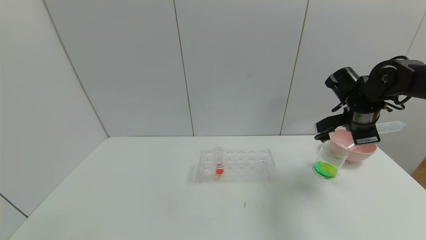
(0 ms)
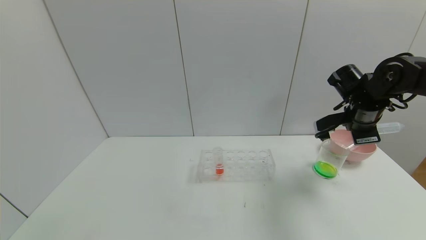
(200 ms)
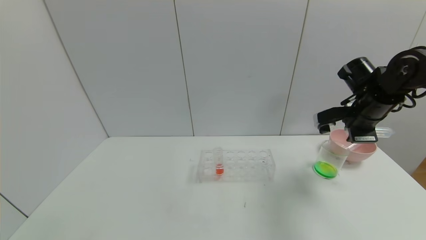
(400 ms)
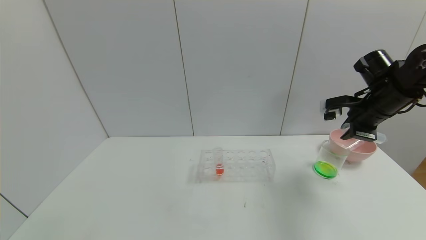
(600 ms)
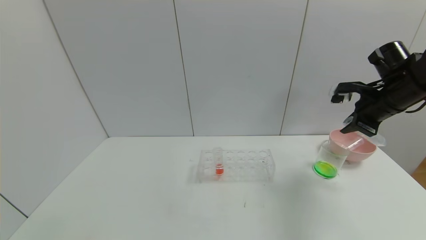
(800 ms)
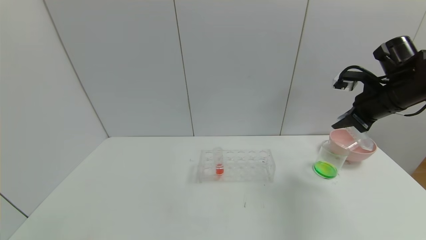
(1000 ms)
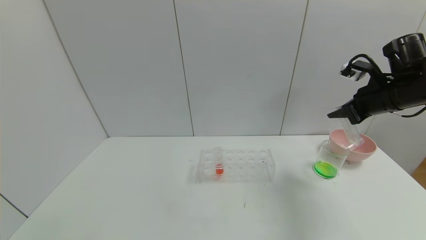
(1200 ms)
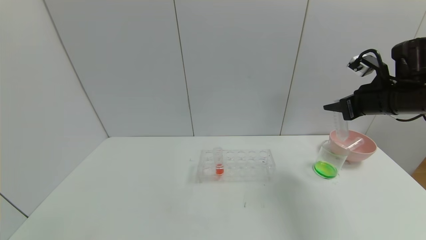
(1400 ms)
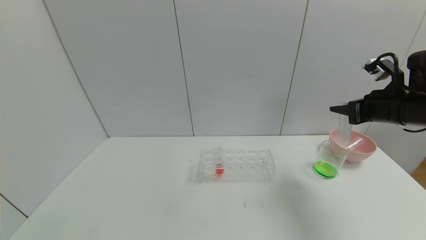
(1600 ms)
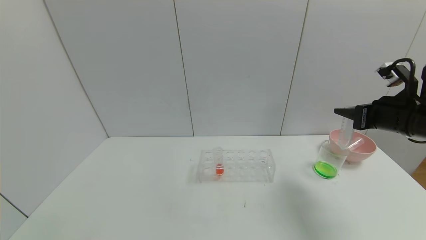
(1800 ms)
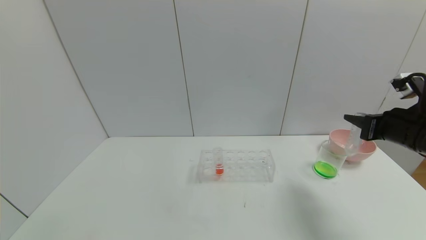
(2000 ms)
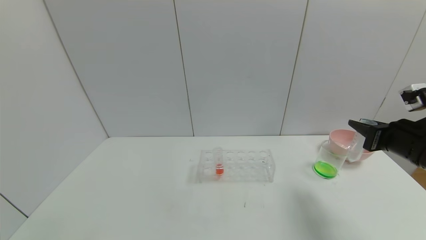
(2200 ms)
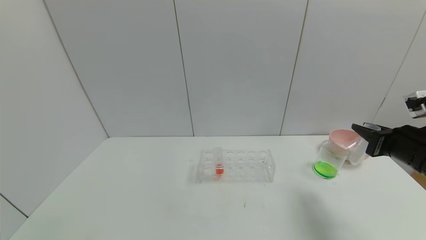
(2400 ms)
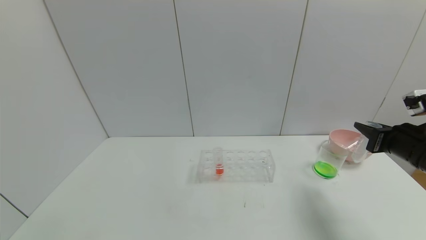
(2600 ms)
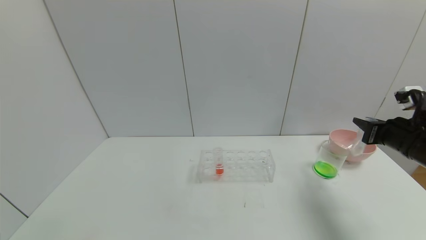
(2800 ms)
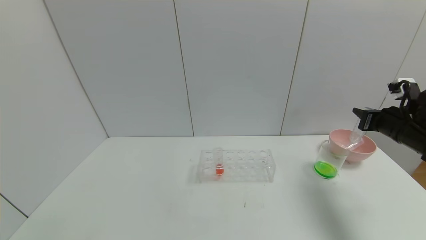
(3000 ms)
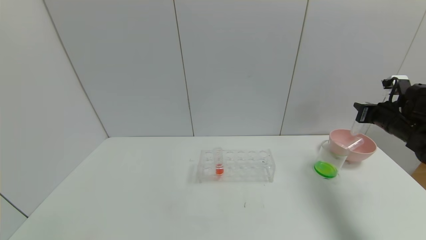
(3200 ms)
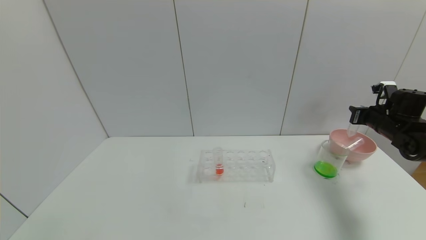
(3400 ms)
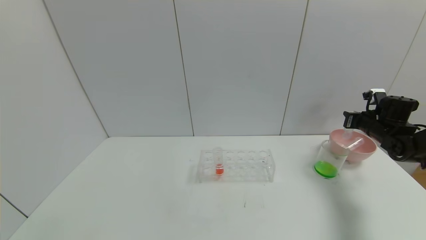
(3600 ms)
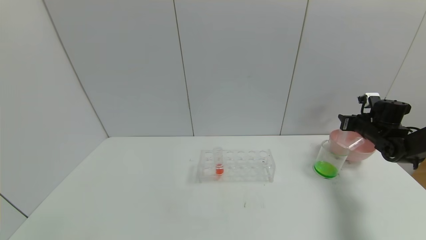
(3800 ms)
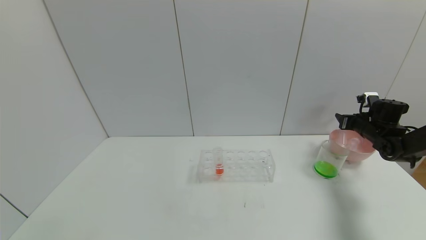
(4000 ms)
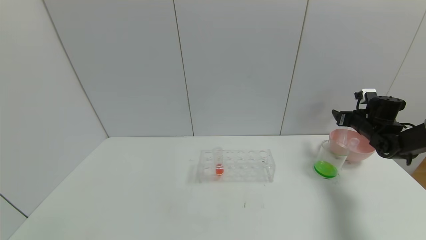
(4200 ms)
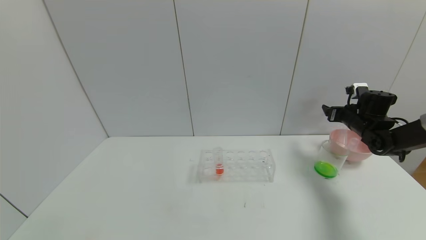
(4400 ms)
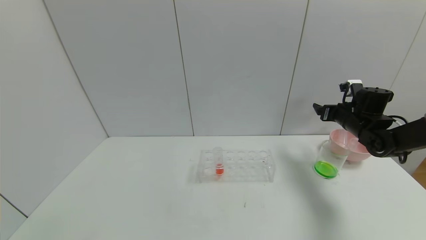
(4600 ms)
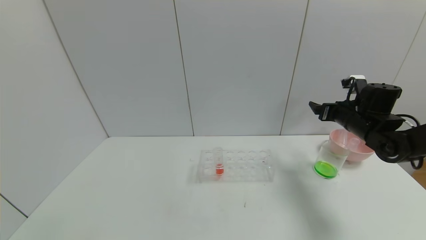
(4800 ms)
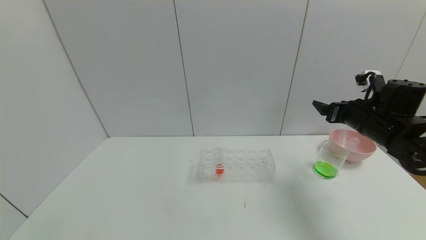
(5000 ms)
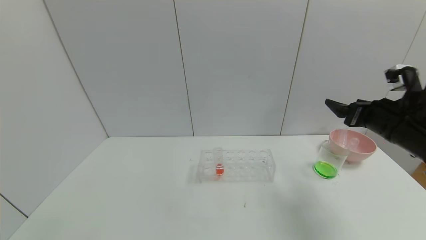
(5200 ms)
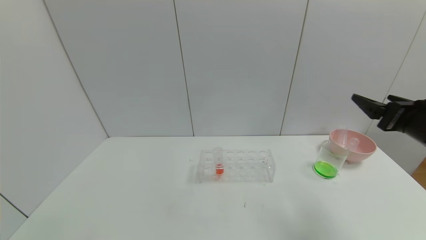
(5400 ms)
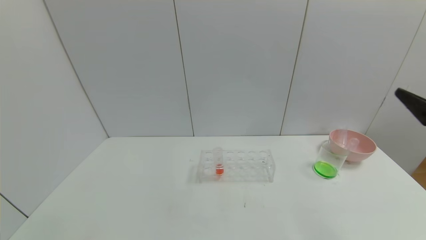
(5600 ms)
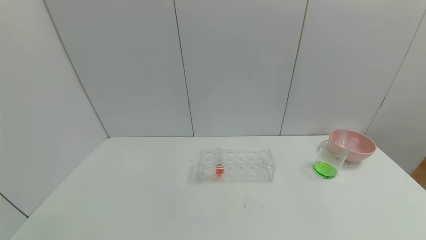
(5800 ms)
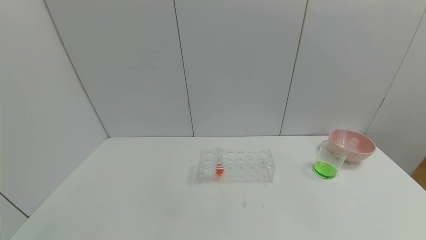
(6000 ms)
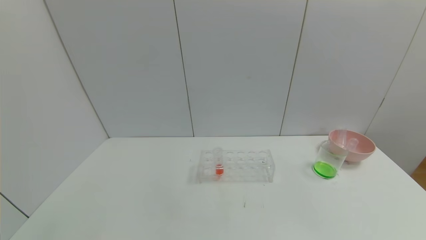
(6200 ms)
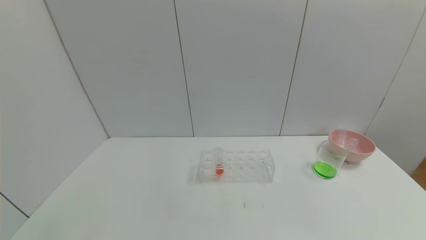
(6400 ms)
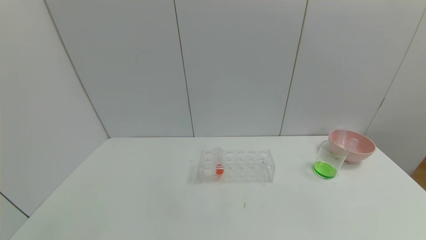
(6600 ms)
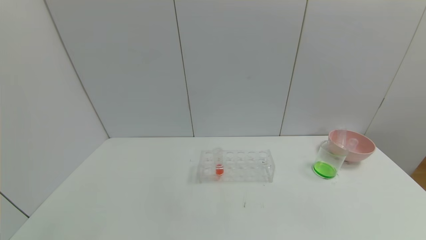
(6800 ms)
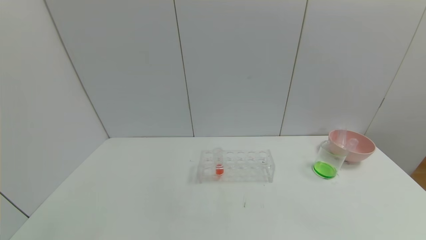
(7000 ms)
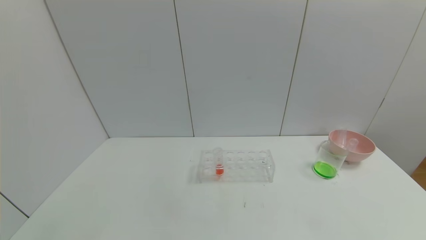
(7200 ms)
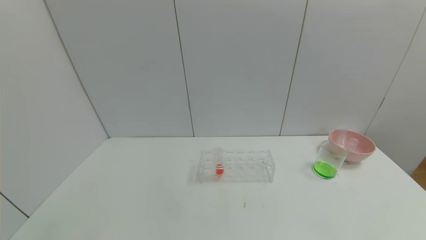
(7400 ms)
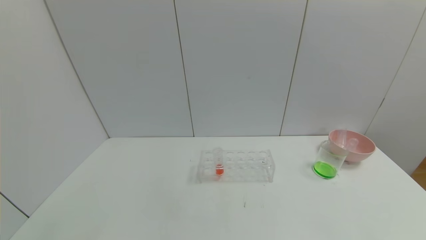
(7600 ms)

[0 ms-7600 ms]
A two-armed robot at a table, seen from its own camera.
Task of the whole recording: pick up the test tube with yellow pigment and the test tube with blue pigment by grippers and pour them into the beaker.
Step, 0 ms to 3200 ms: Pour the blue reagent into the graduated cylinder with right gripper.
Step, 3400 ms to 5600 ms: Place the test tube into the bowl with right gripper.
0 ms to 1600 ms: The right gripper goes roughly 5 cm backward.
1600 ms to 3000 ms: The right gripper shifts some 10 cm downward and to the right, and moves approximately 10 cm backward and comes back.
3000 ms to 4600 ms: The right gripper heads forward, covering some 10 cm, and opens its fingers.
4600 ms to 6000 ms: The right gripper shifts roughly 40 cm backward.
